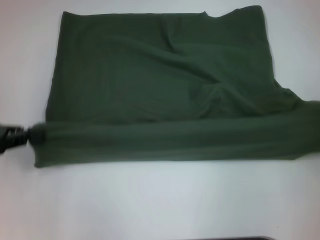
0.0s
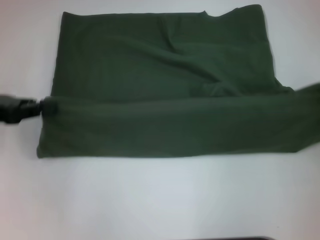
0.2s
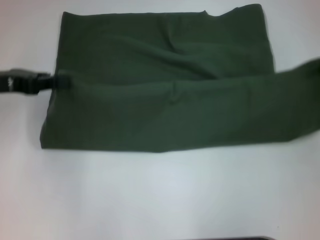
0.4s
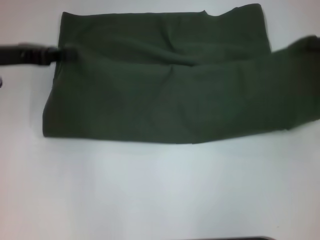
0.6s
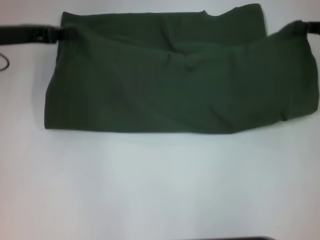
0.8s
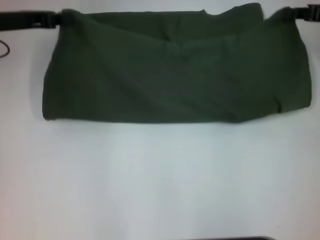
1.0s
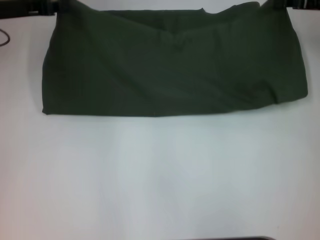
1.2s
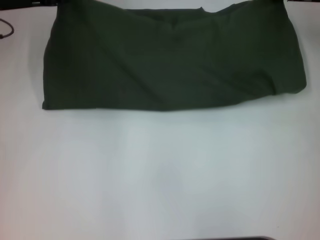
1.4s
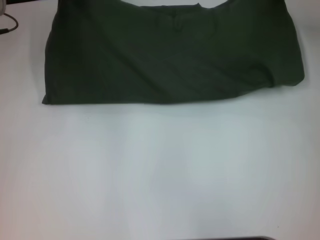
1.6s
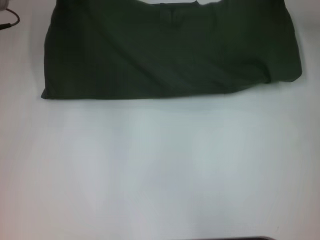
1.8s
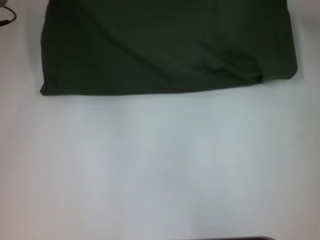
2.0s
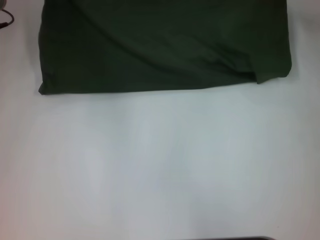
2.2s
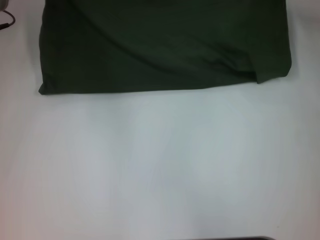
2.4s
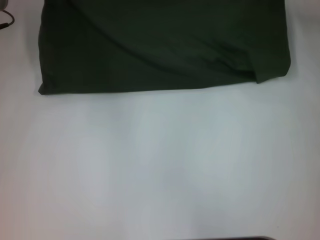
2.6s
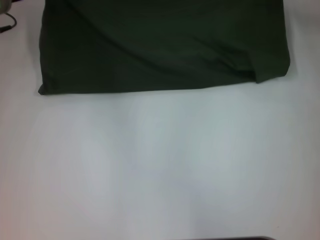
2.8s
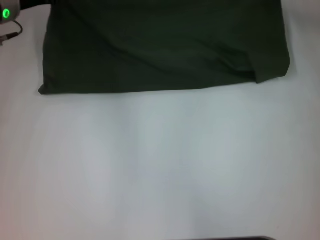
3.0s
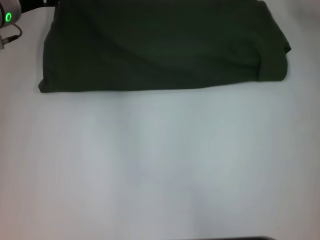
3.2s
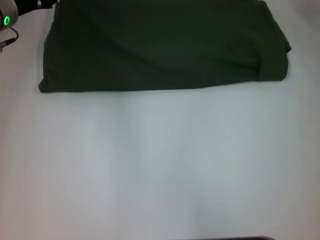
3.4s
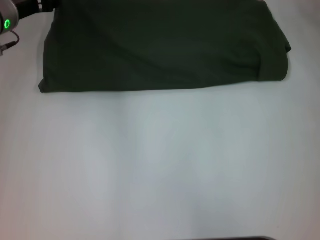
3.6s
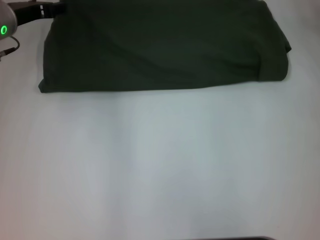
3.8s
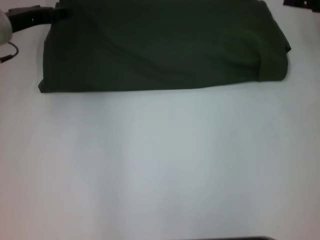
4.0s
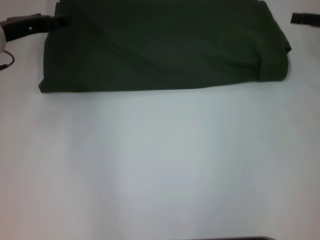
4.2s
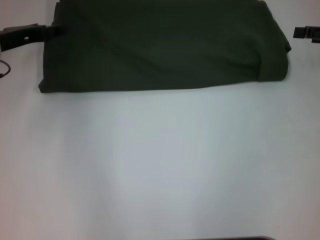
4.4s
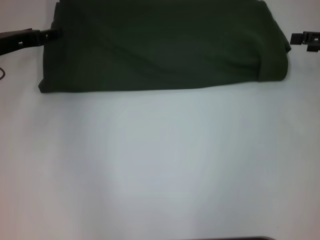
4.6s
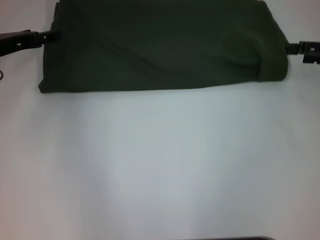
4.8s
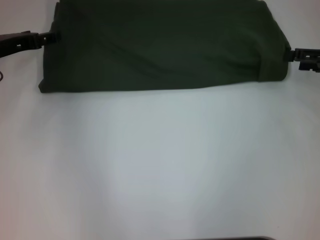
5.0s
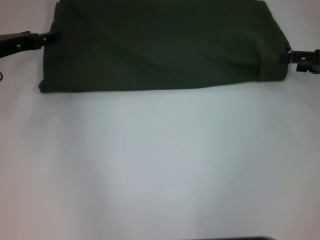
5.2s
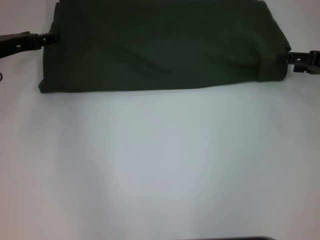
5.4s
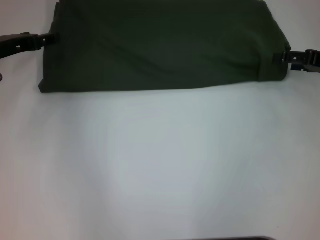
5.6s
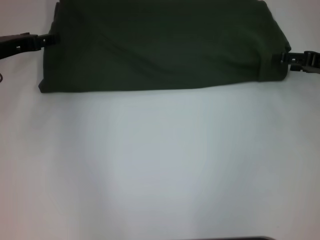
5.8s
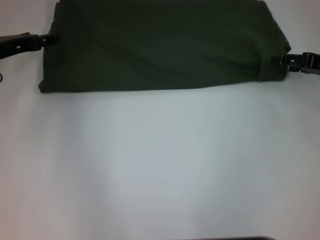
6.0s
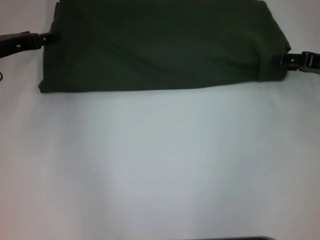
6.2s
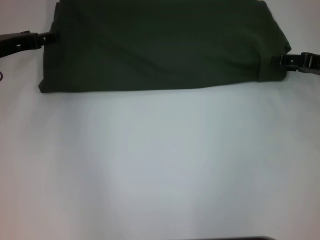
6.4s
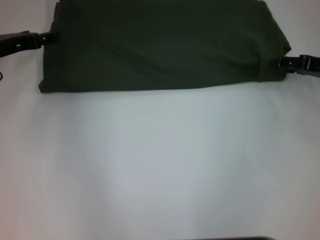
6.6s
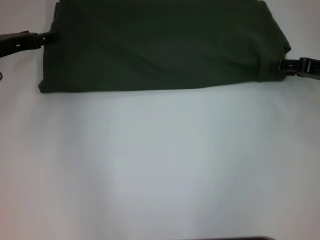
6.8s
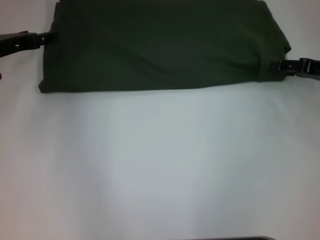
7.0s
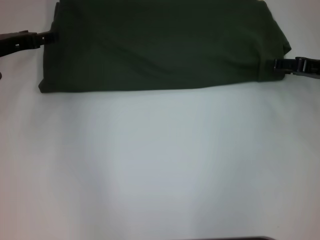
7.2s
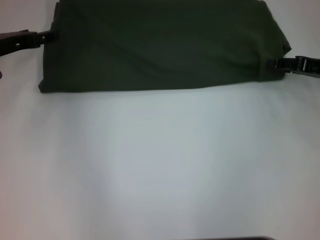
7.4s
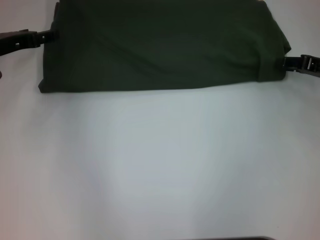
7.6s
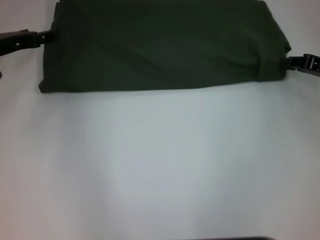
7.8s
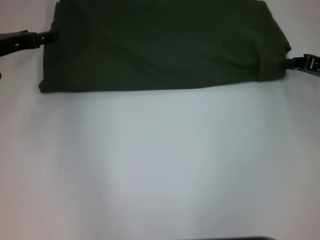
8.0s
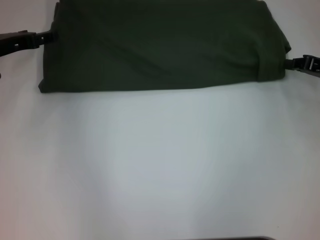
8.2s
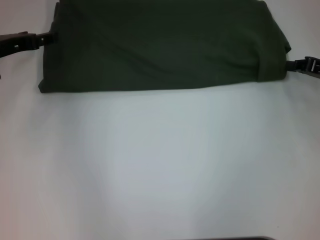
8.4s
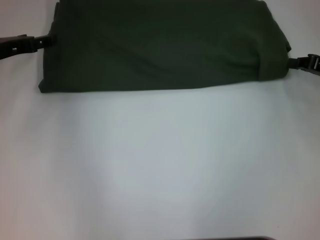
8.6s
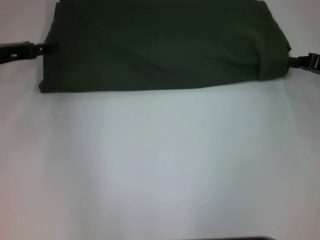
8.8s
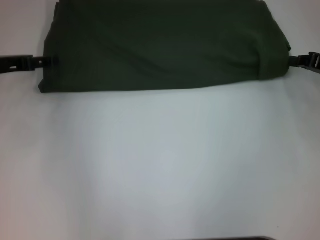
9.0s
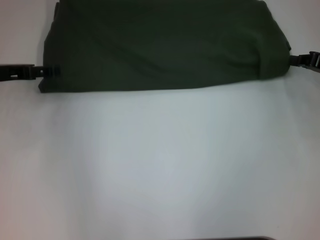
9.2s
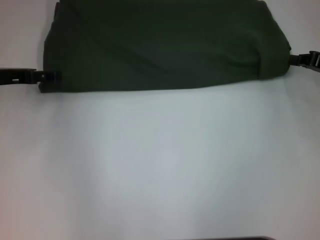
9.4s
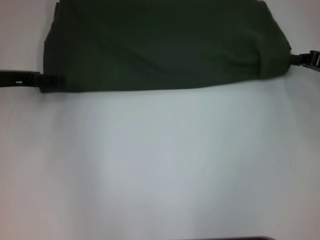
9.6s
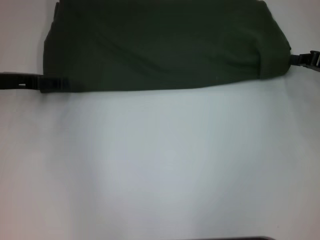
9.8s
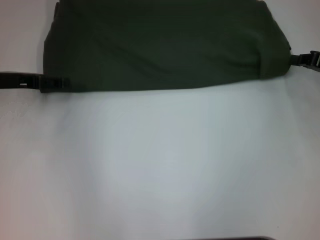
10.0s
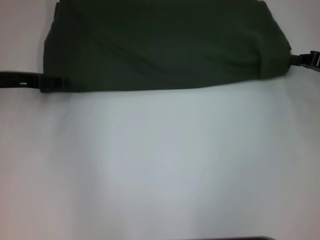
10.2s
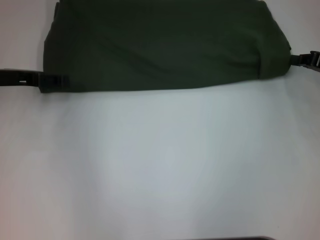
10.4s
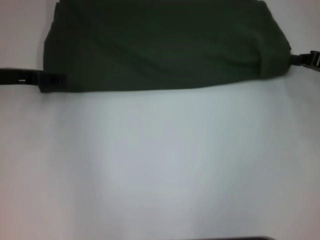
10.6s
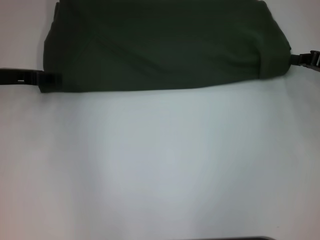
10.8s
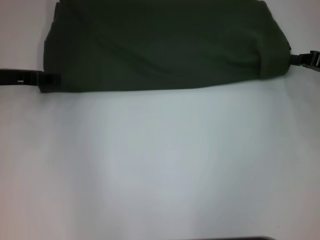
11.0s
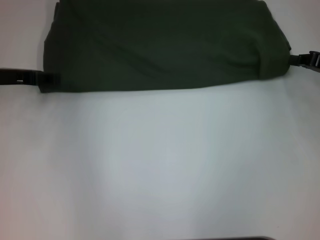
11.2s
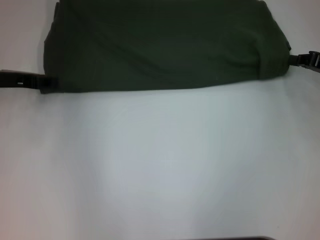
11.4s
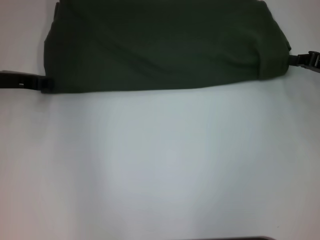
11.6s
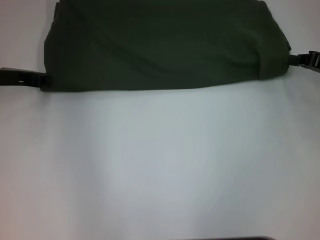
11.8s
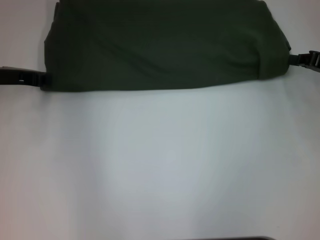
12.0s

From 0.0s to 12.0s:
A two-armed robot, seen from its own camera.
Step, from 0.0s to 3.2s: Fold the clothes with your right hand.
From 0.0s to 1.6s: The right gripper is displaced forward and to the left by some 25 cm, while the left gripper travels forward and to the right by about 20 cm.
From 1.6s to 3.0s: There are only small adjustments of the grippers.
From 3.0s to 4.4s: The right gripper goes about 10 cm backward and to the right, and opens; the left gripper travels backward by approximately 5 cm, and opens.
From 4.4s to 6.0s: The grippers move only a little.
From 6.0s to 7.6s: The two grippers keep their place.
From 9.0s to 10.4s: The grippers move only a little.

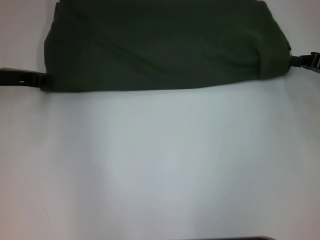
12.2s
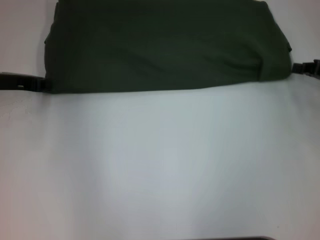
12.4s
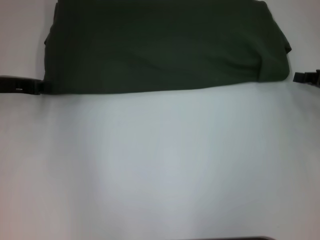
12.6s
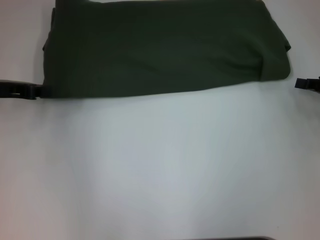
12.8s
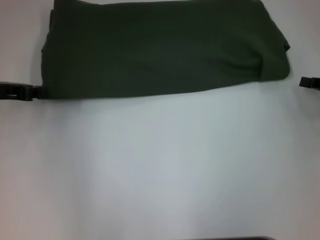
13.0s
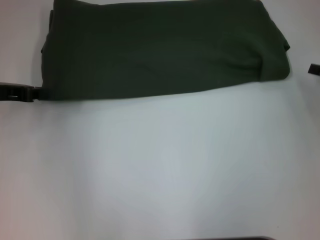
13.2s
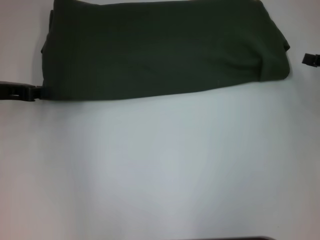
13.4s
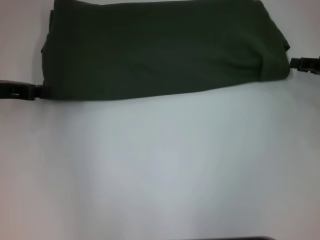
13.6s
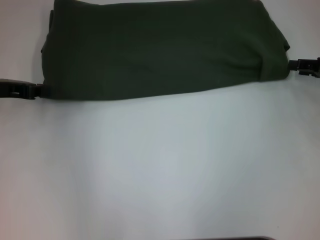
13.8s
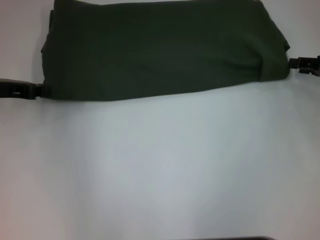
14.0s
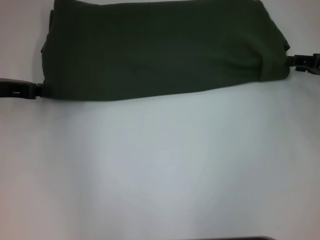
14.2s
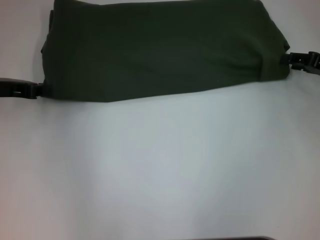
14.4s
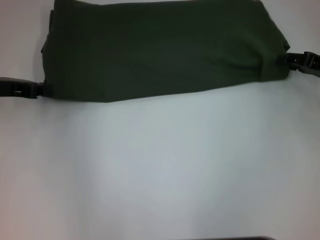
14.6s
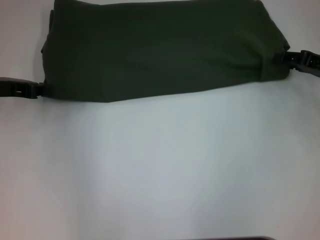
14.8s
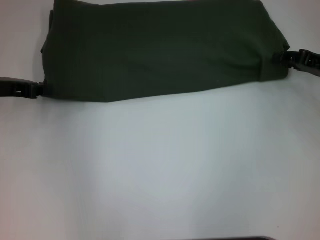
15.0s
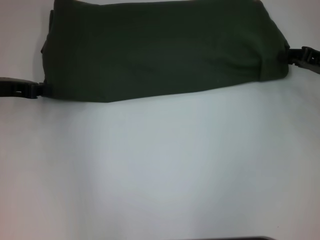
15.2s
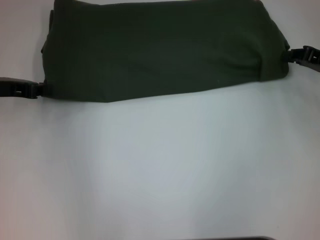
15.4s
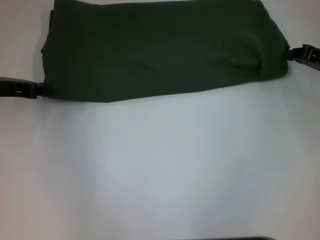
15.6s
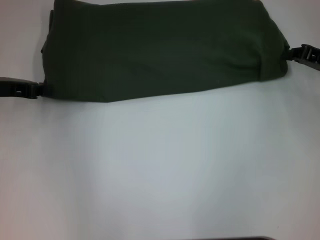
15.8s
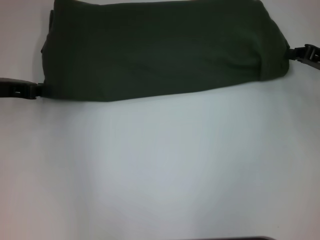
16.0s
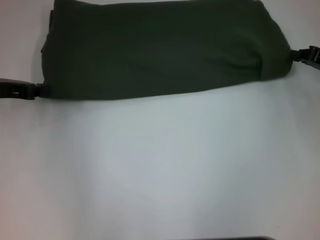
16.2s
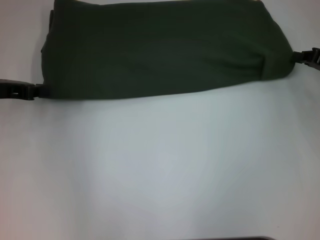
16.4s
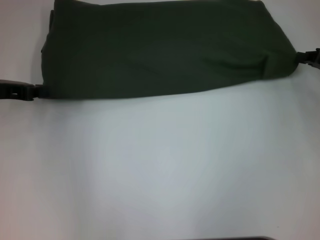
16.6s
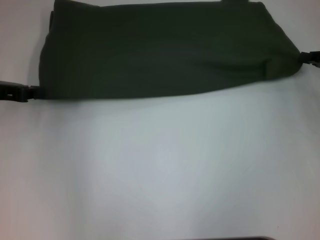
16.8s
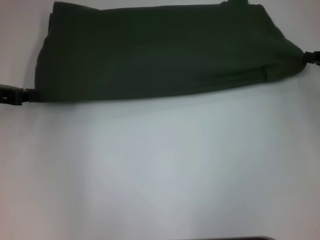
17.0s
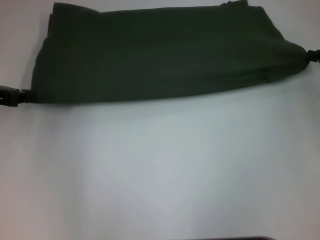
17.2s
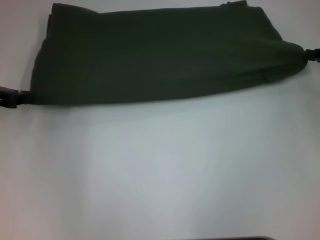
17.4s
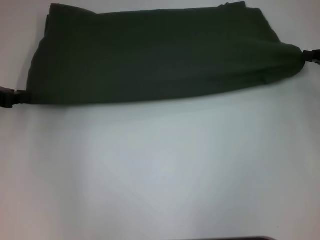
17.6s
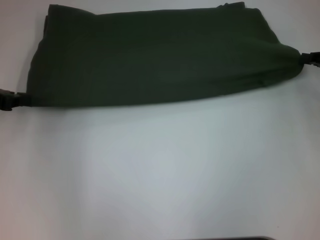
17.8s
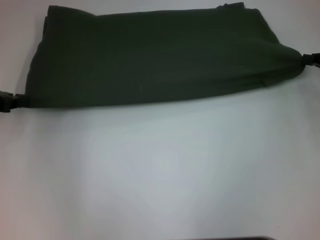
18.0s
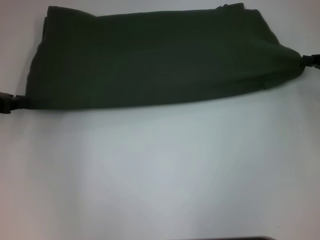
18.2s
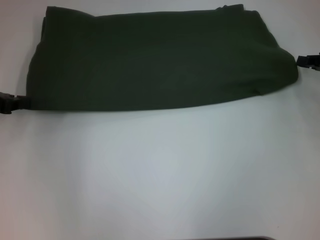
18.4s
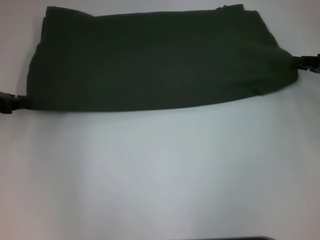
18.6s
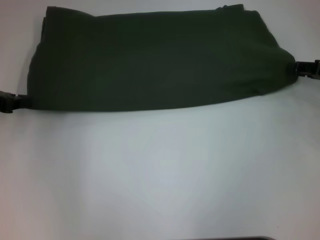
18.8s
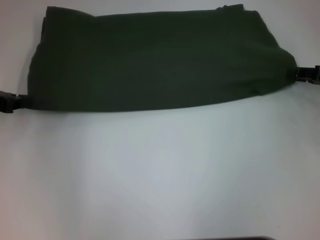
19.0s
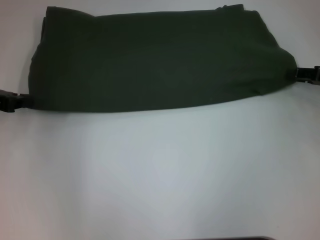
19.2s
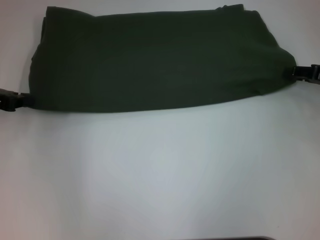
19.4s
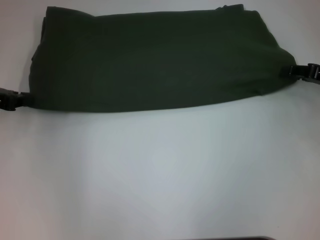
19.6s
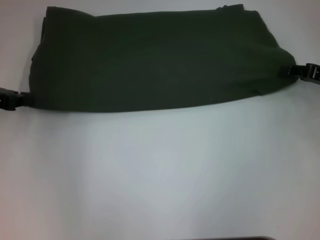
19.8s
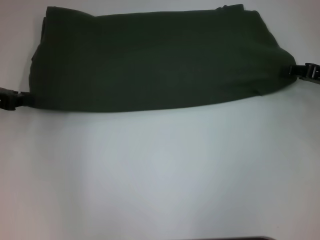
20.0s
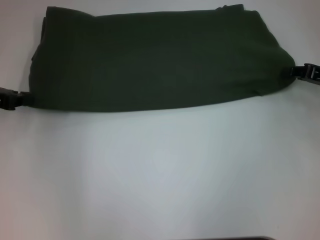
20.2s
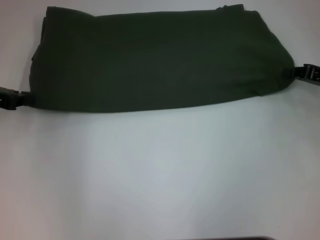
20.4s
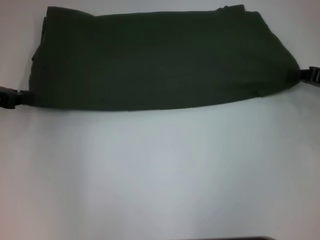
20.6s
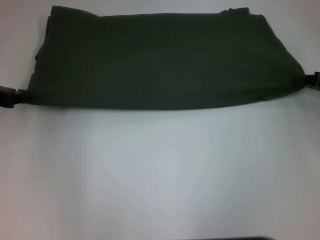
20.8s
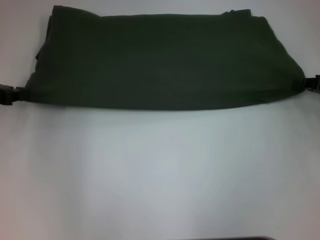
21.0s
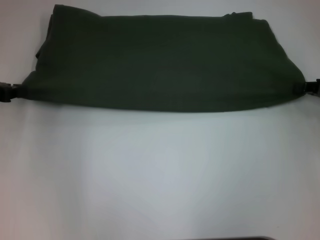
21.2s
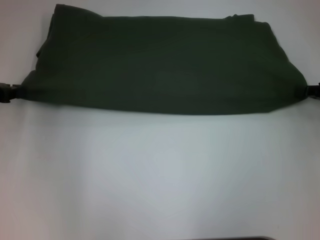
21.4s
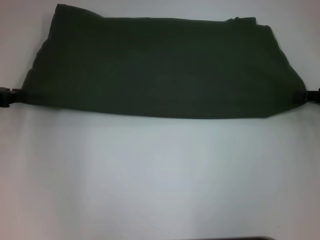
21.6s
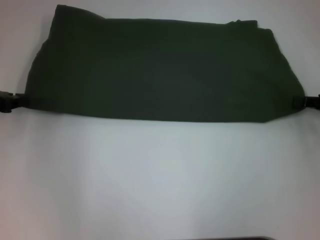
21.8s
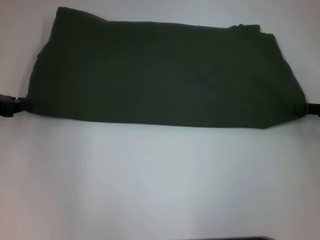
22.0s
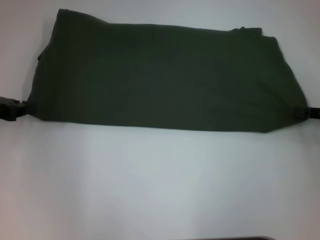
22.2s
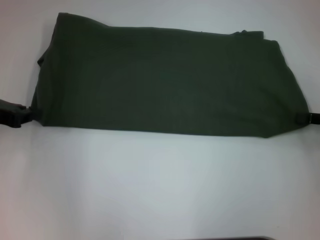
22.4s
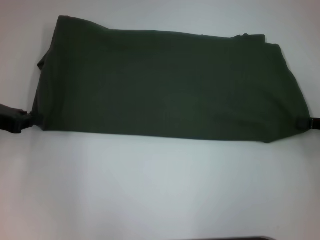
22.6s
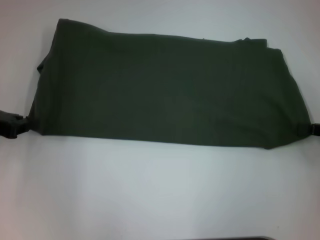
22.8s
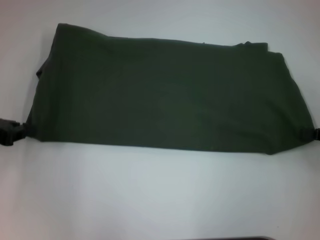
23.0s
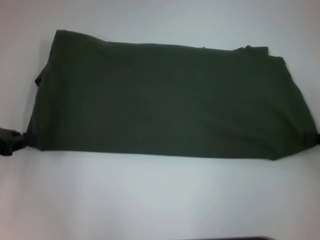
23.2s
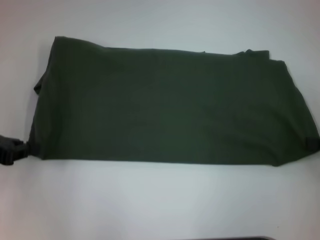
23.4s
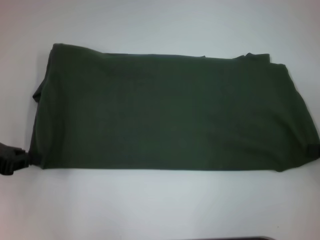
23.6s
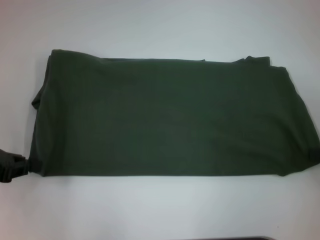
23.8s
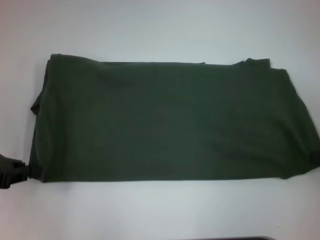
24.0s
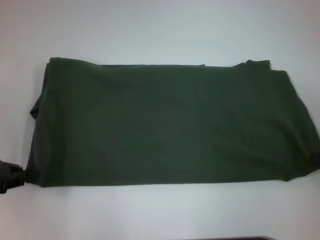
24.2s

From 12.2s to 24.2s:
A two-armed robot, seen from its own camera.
From 12.2s to 15.2s: The grippers move only a little.
From 15.2s to 16.6s: The right gripper closes.
From 16.6s to 18.2s: The grippers move only a little.
From 18.2s to 19.8s: The right gripper opens its fingers.
From 19.8s to 21.2s: The right gripper closes its fingers.
From 21.2s to 22.6s: The right gripper heads backward, covering about 5 cm.
From 22.6s to 24.2s: The left gripper shifts about 5 cm backward.
